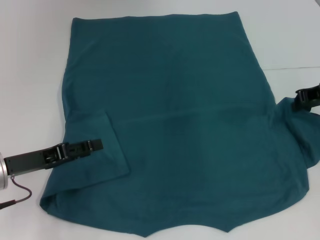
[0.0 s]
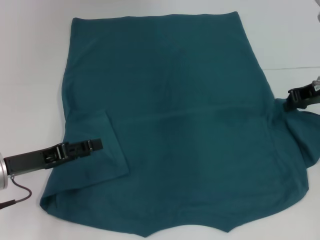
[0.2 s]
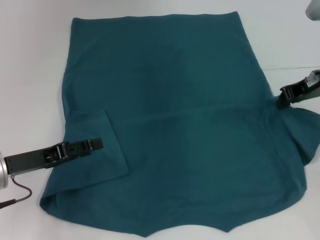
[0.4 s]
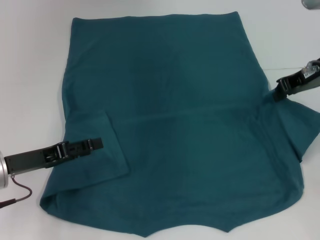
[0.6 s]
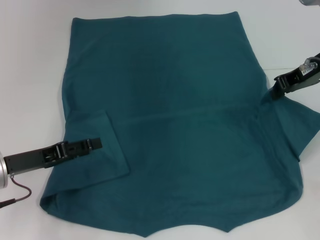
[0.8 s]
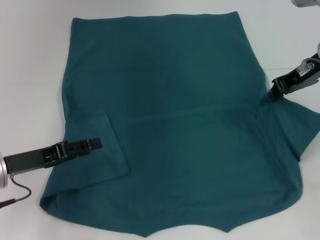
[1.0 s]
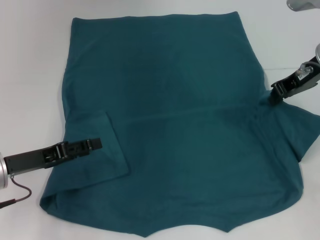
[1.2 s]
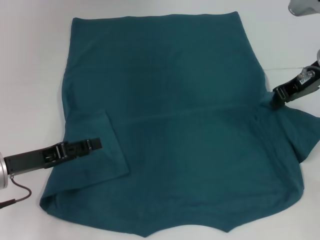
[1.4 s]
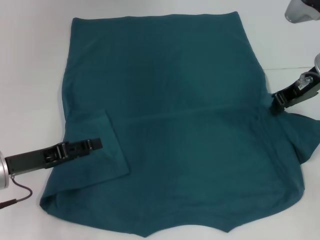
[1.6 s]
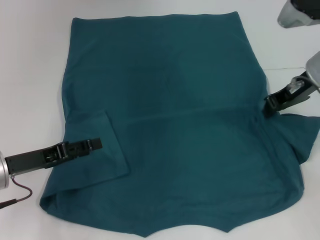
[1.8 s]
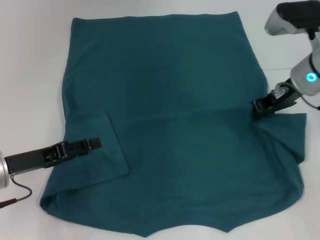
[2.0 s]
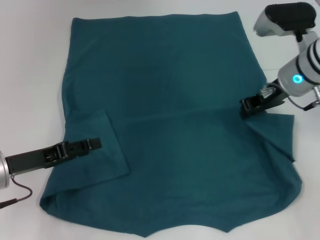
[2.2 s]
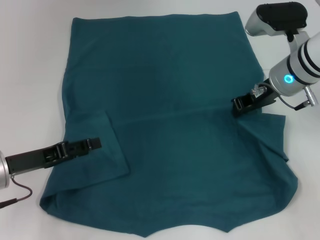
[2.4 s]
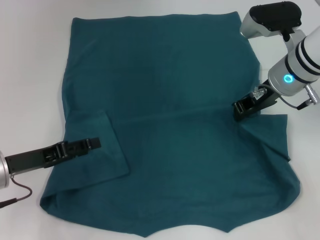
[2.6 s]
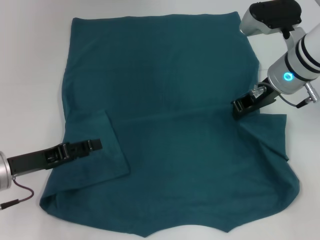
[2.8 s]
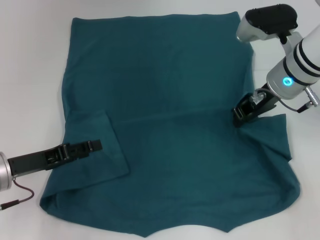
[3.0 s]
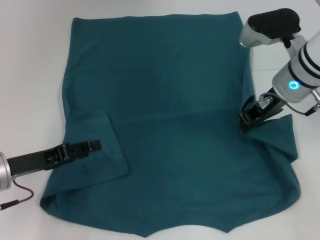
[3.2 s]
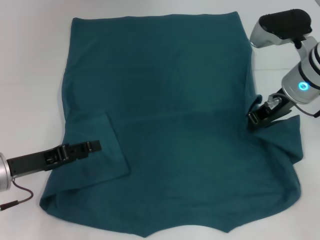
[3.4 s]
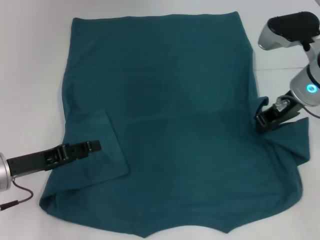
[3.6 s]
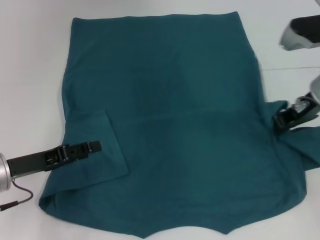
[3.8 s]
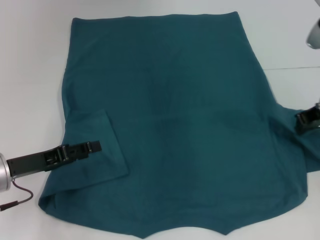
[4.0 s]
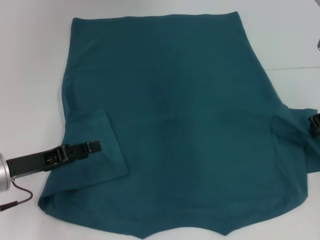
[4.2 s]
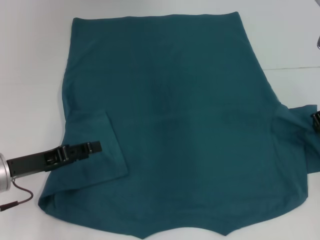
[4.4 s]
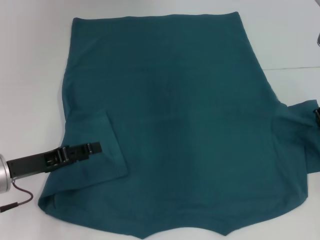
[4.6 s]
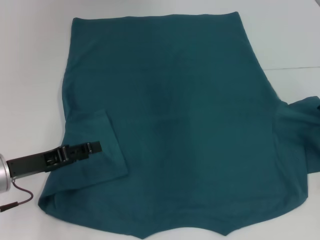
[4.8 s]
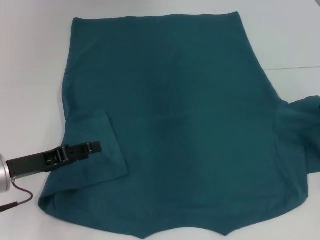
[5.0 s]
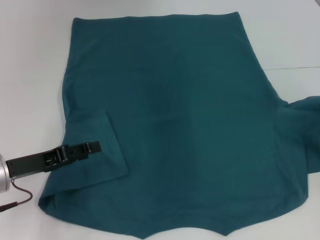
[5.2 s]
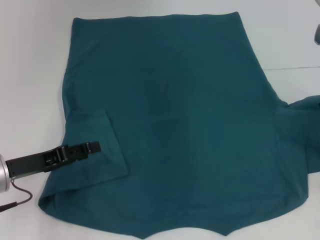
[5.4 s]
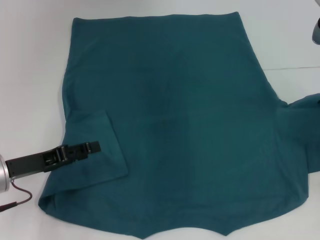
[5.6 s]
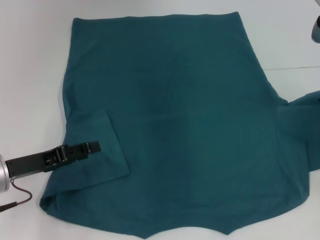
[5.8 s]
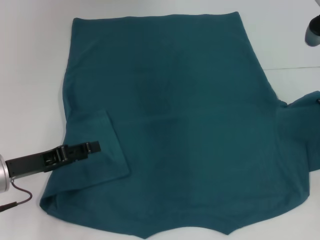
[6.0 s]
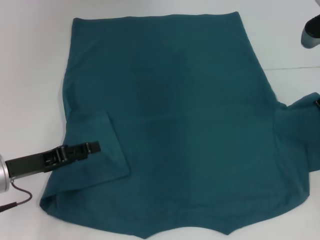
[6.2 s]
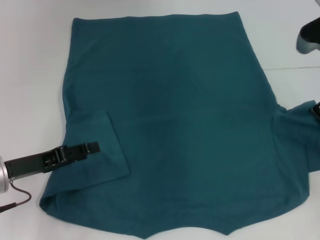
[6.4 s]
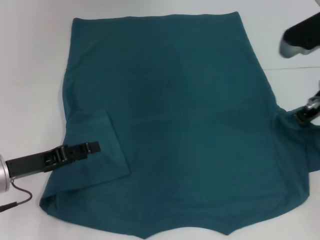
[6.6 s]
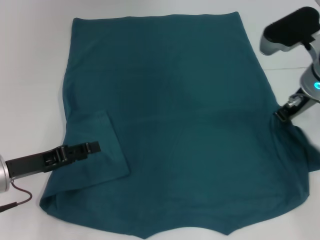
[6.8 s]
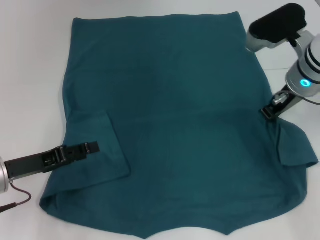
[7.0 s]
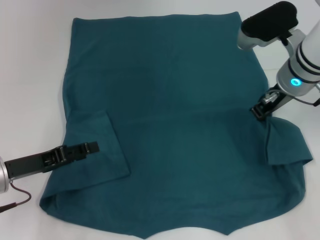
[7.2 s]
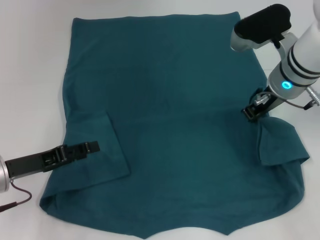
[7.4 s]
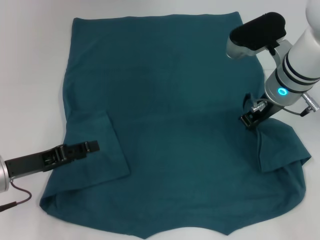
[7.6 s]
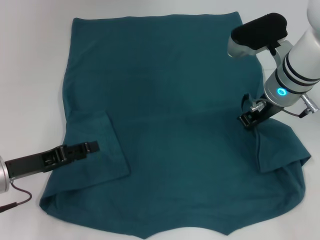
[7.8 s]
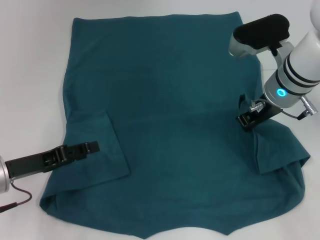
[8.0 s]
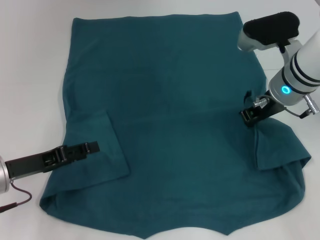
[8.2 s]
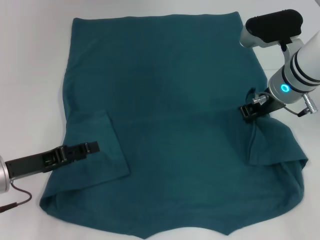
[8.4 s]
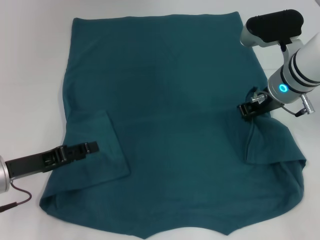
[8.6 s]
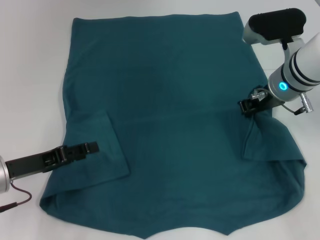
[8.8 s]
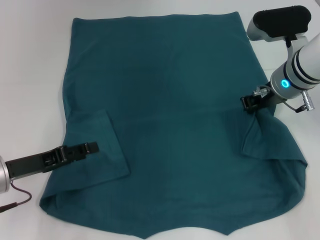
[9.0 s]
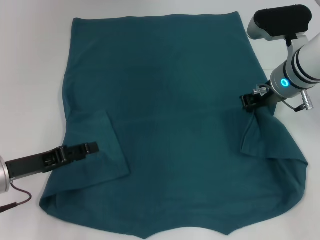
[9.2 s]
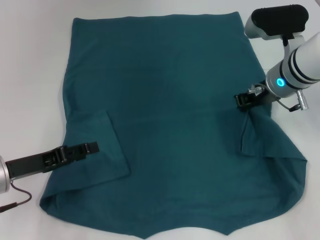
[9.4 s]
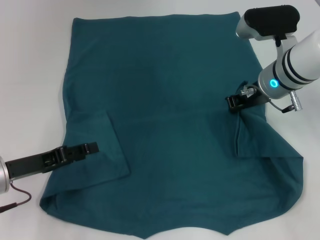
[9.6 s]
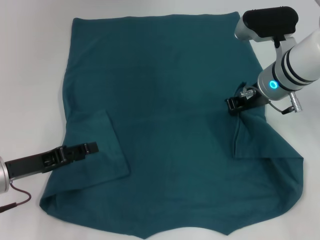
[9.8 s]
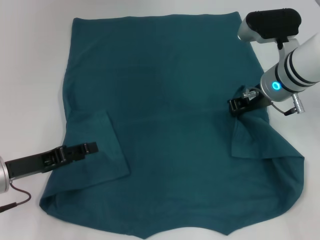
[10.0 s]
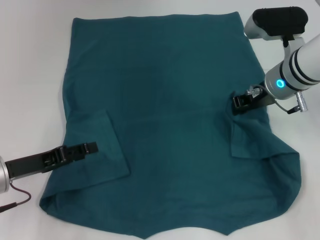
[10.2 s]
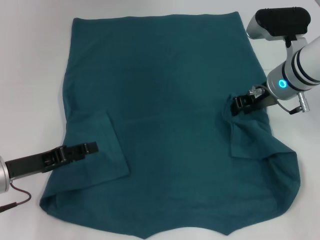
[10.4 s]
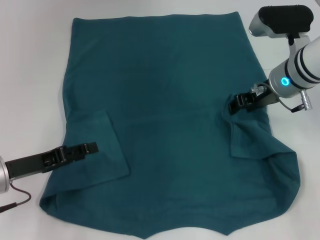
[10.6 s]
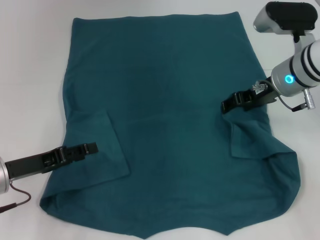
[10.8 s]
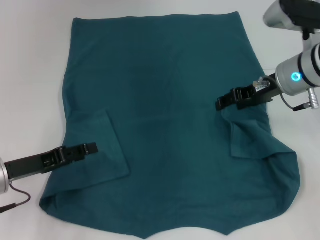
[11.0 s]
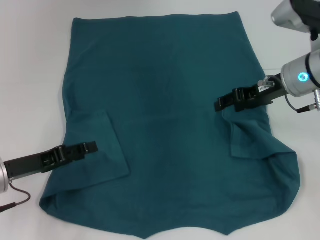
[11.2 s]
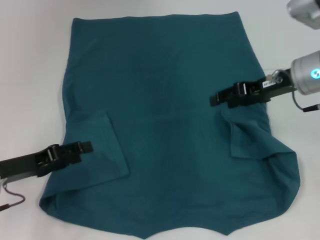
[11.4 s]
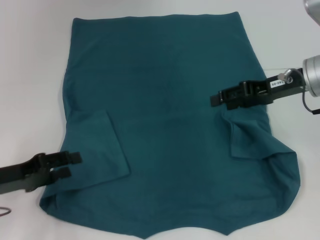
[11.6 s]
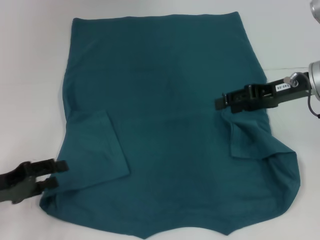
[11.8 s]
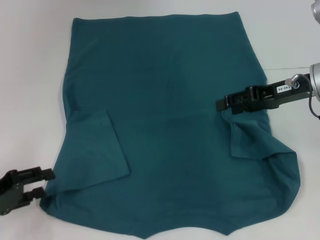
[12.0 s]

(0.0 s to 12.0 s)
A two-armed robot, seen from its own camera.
Step, 0.0 s - 10.8 s: Fold the bottom right sleeve to the right.
0.0 s - 1.6 s: The right gripper shifts some 5 cm to the left.
1.6 s - 3.0 s: The right gripper travels to the left by about 5 cm.
3.0 s - 4.4 s: The right gripper shifts approximately 10 cm to the right.
4.4 s - 6.0 s: The grippers make only small movements.
6.0 s - 7.6 s: The right gripper travels to the left by roughly 10 cm.
7.6 s - 9.0 s: The grippers move only a little.
9.0 s - 10.4 s: The grippers move only a little.
10.4 s - 12.0 s: The right gripper moves to the right, approximately 5 cm, and opens its fingers. Meanwhile the left gripper heads to the left, covering approximately 5 cm.

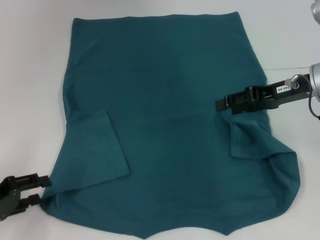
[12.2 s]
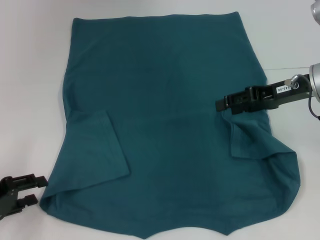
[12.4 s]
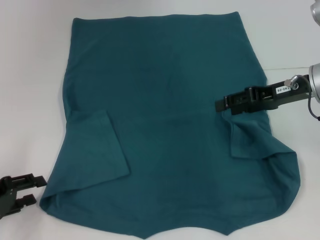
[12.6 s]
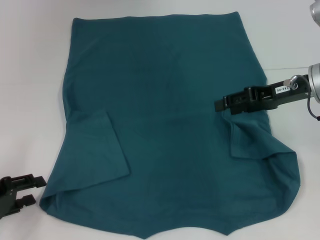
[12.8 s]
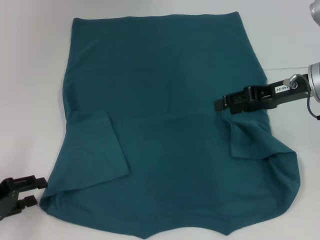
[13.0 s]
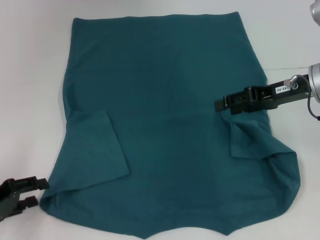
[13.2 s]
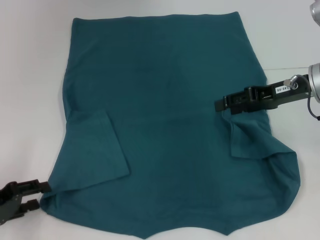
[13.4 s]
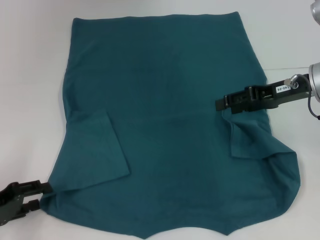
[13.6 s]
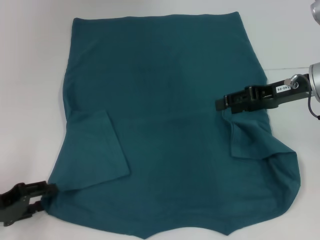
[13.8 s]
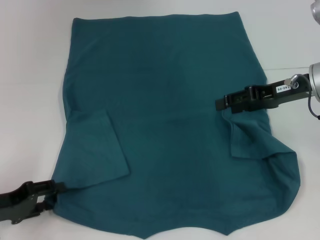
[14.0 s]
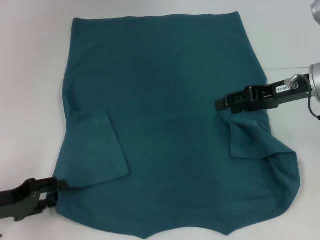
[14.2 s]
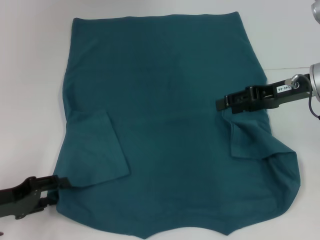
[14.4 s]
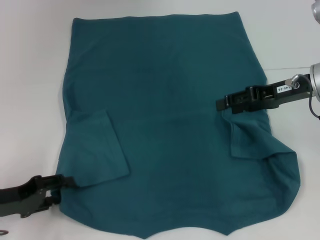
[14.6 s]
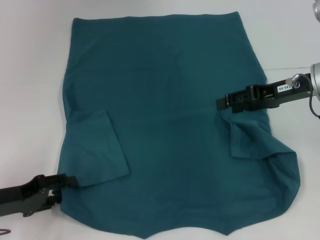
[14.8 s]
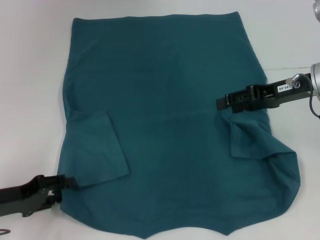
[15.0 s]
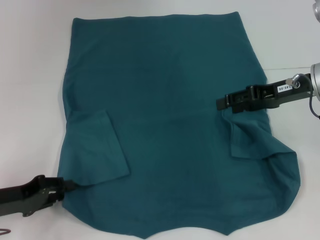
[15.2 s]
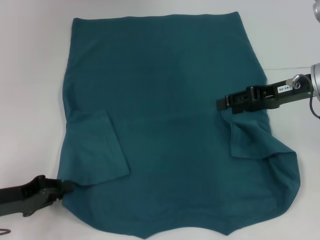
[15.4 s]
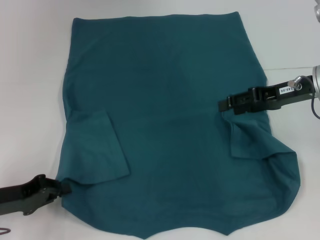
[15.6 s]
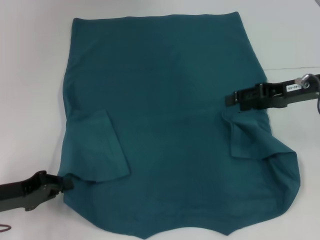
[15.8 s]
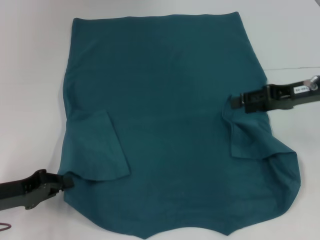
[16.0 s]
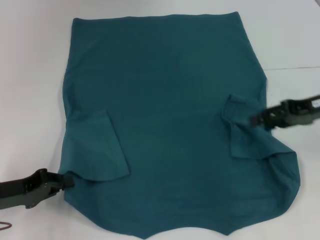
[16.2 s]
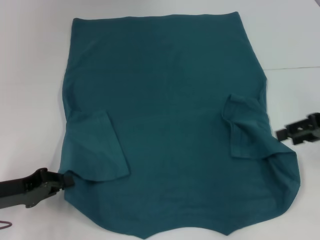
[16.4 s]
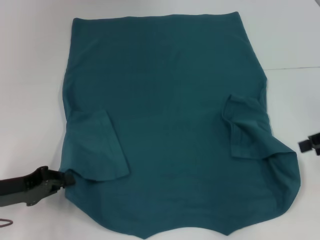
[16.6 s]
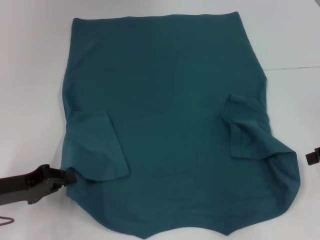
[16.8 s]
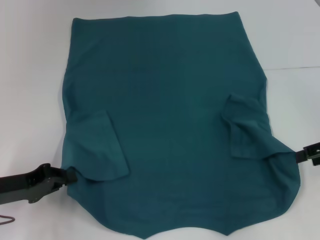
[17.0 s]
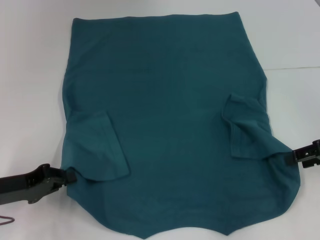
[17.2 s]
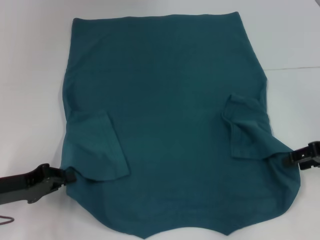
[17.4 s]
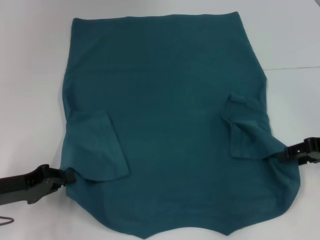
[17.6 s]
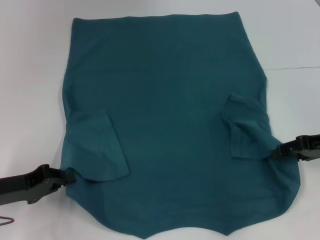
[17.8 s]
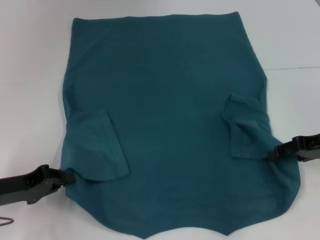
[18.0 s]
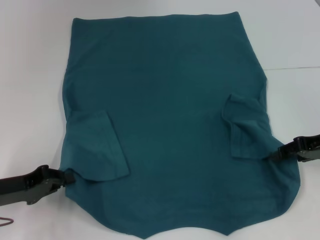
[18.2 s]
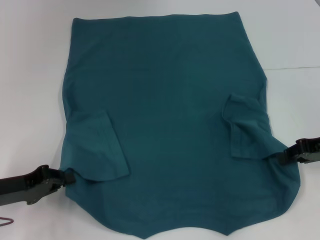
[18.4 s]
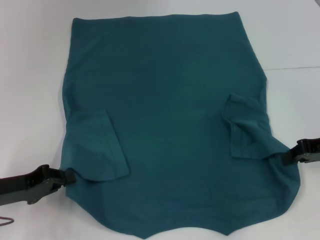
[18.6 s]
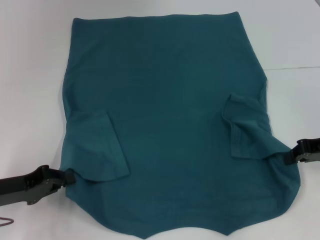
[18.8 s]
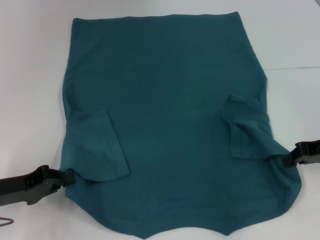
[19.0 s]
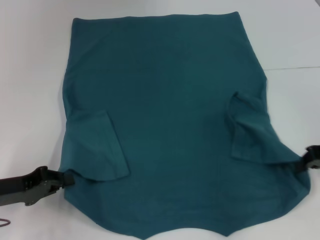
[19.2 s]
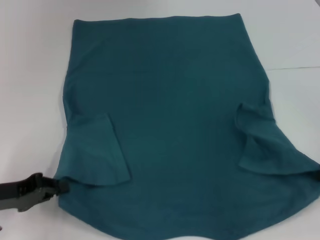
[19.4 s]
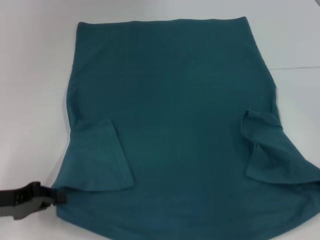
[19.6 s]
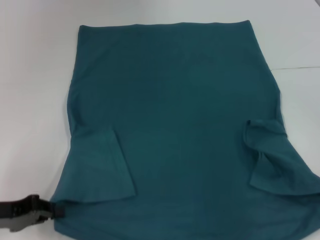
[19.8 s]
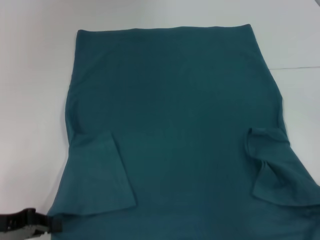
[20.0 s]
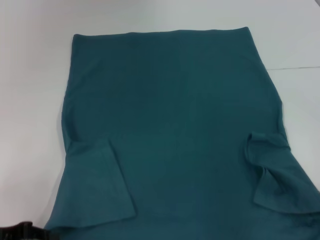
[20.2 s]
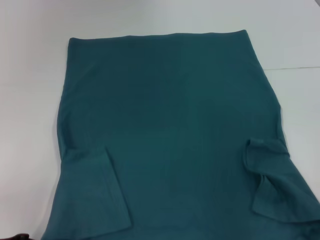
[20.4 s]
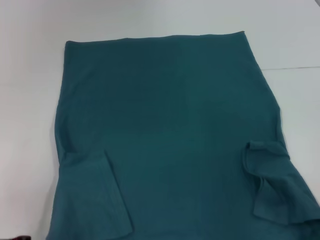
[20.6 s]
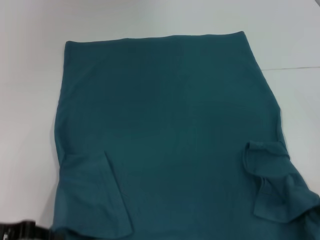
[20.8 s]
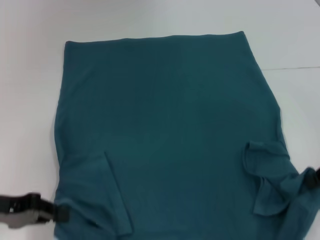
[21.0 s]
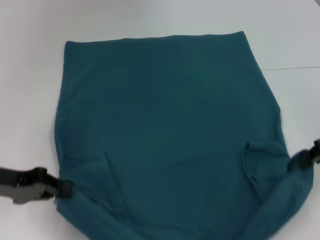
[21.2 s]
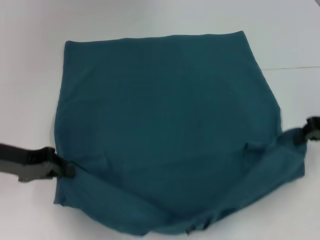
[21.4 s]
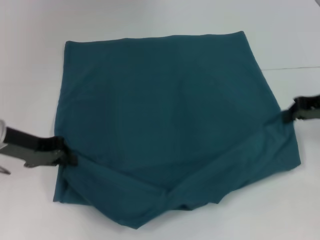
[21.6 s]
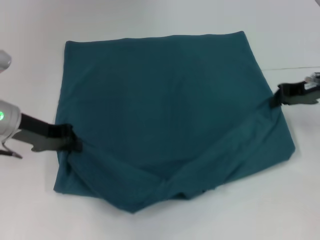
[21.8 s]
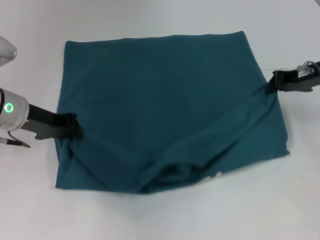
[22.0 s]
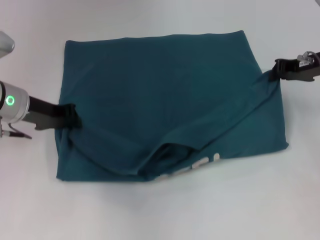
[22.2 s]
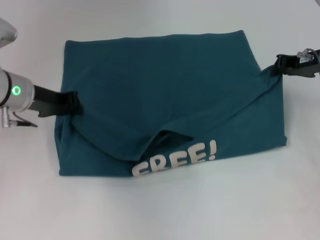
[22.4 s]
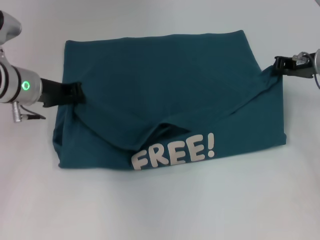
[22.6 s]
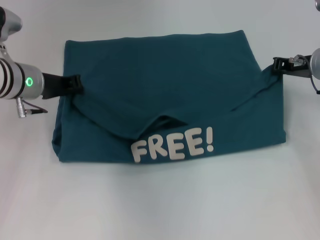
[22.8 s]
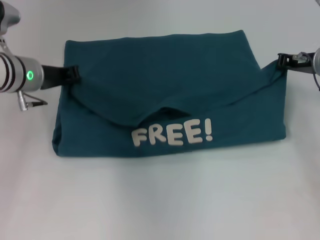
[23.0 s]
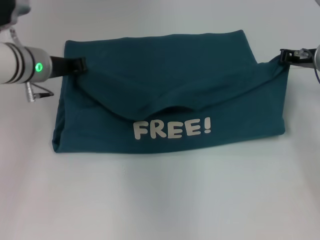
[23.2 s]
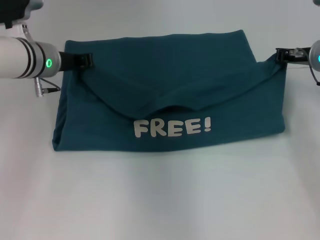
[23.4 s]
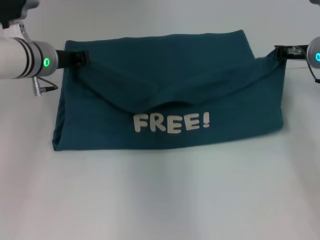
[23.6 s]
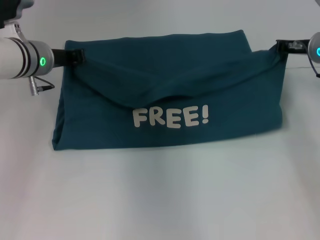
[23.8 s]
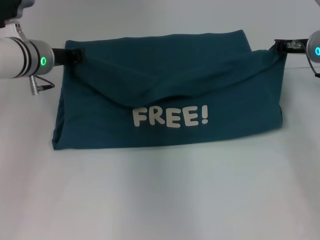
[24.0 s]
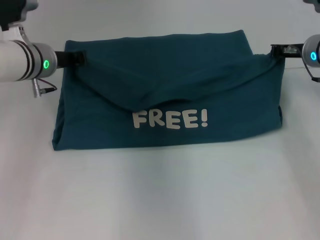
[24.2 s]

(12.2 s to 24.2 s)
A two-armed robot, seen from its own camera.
Step, 12.2 s - 15.4 s: Grab the bottom left corner with your left hand.
Step, 15.6 s - 19.0 s: Grab the bottom right corner with your right hand.
12.2 s - 15.2 s: The grippers make only small movements.
15.2 s - 16.6 s: The right gripper is displaced to the right and backward by roughly 10 cm. Meanwhile the left gripper closes its fingers.
16.6 s - 18.2 s: The right gripper travels downward by about 5 cm.
18.2 s - 19.8 s: The right gripper closes up.
19.8 s - 21.2 s: The left gripper is displaced upward by some 5 cm.
21.2 s - 22.6 s: The right gripper travels forward and to the left by roughly 10 cm. The left gripper shifts approximately 15 cm forward and to the right.
